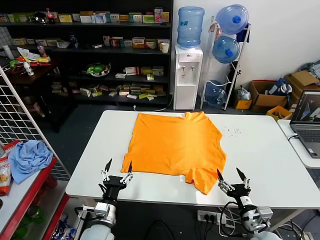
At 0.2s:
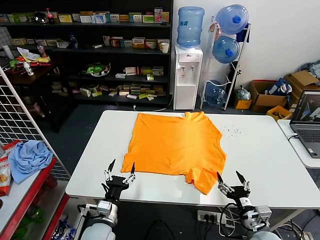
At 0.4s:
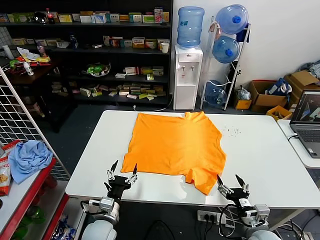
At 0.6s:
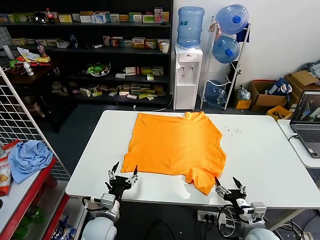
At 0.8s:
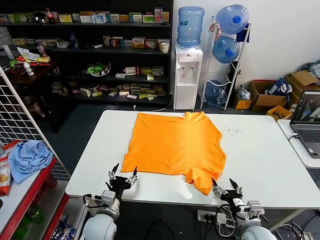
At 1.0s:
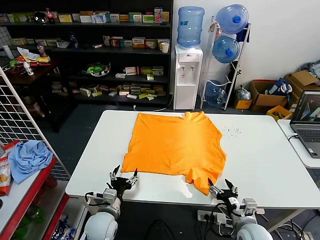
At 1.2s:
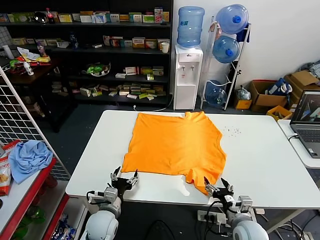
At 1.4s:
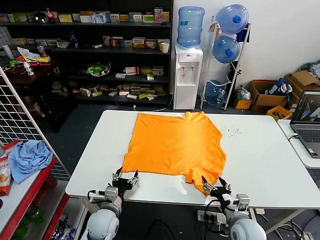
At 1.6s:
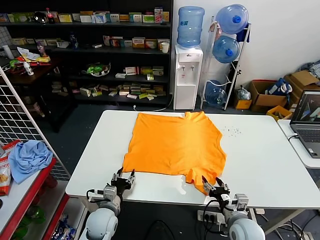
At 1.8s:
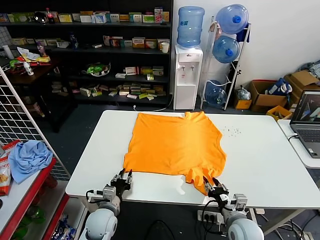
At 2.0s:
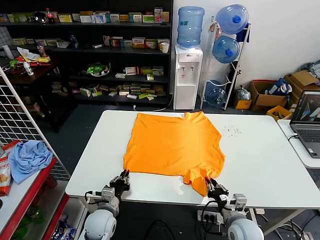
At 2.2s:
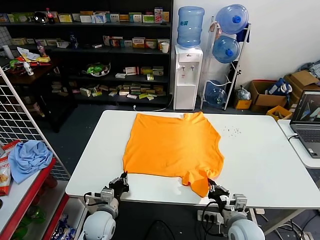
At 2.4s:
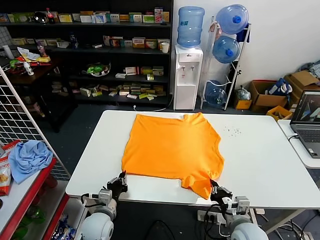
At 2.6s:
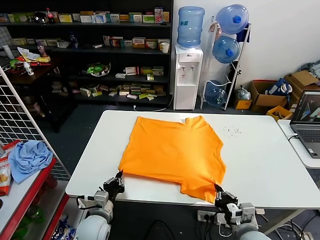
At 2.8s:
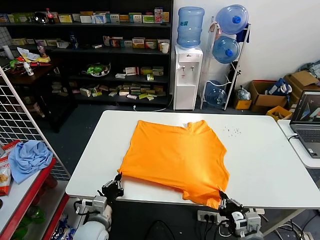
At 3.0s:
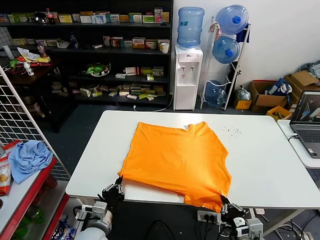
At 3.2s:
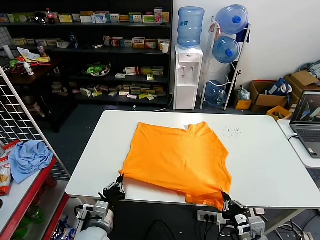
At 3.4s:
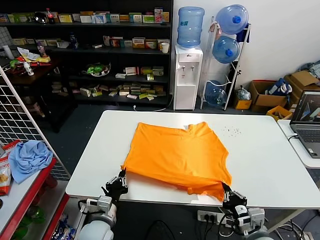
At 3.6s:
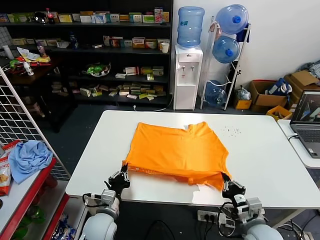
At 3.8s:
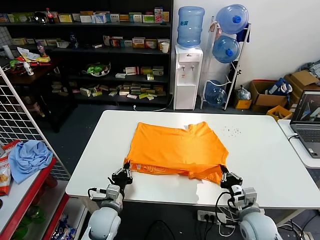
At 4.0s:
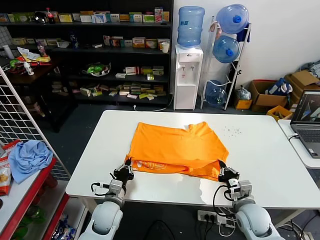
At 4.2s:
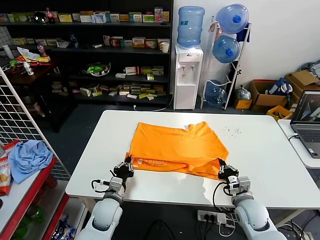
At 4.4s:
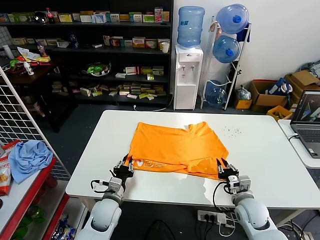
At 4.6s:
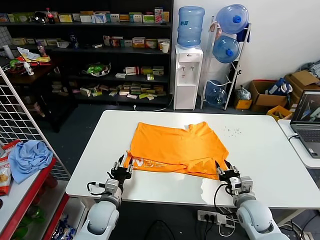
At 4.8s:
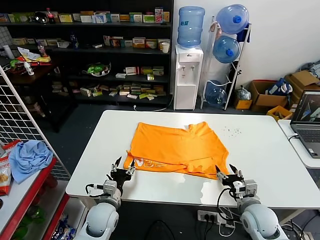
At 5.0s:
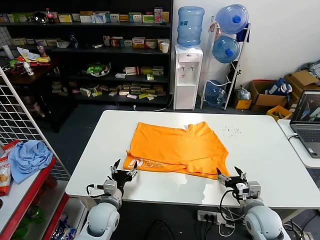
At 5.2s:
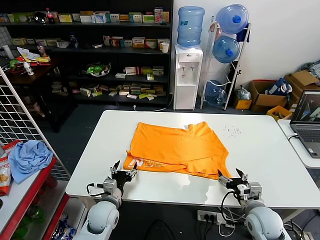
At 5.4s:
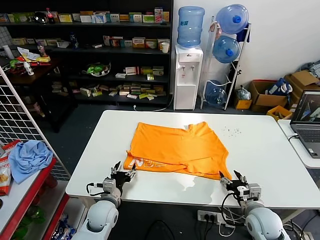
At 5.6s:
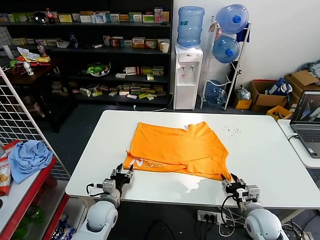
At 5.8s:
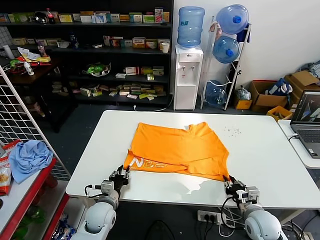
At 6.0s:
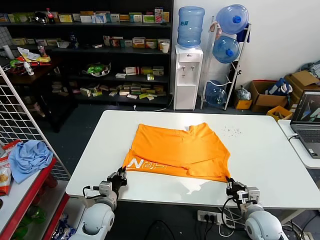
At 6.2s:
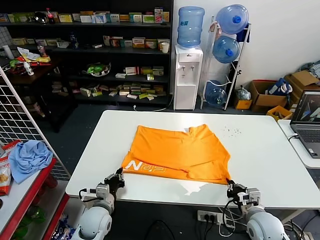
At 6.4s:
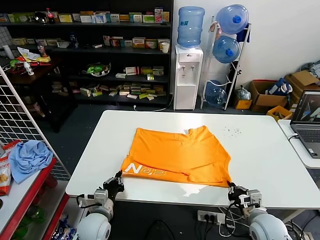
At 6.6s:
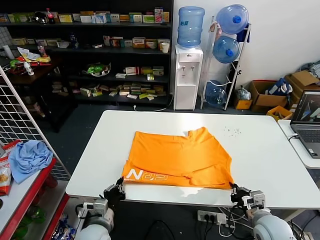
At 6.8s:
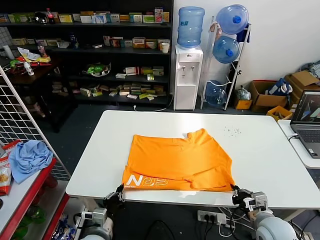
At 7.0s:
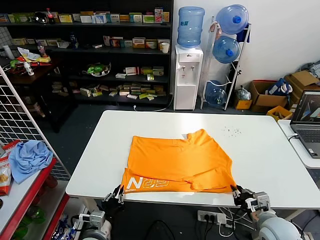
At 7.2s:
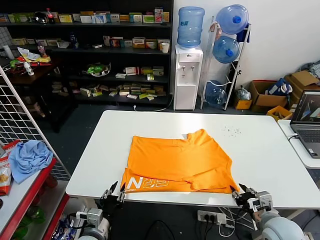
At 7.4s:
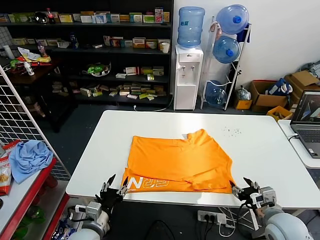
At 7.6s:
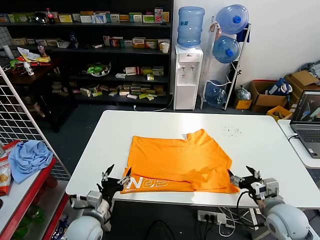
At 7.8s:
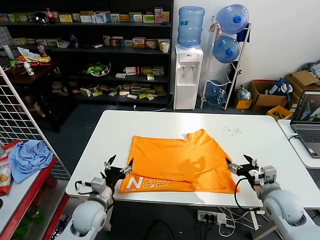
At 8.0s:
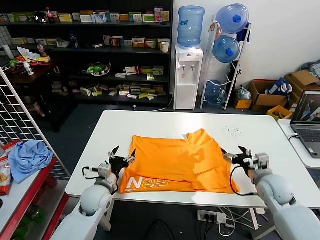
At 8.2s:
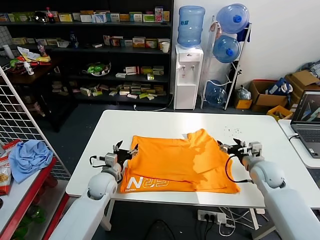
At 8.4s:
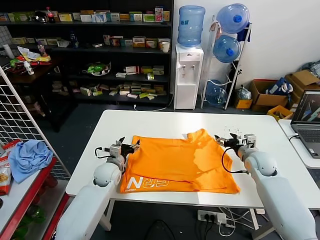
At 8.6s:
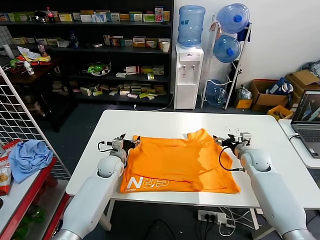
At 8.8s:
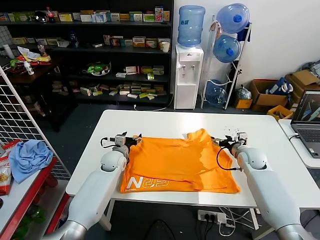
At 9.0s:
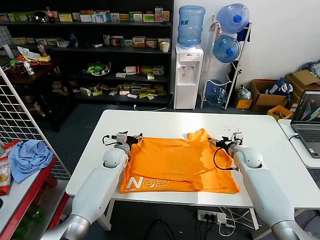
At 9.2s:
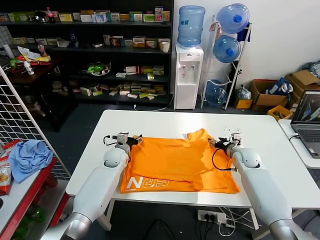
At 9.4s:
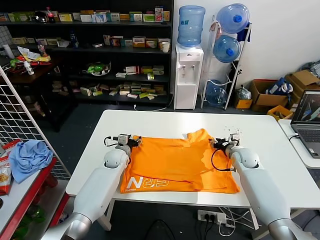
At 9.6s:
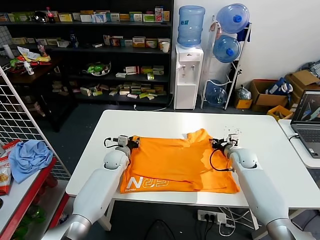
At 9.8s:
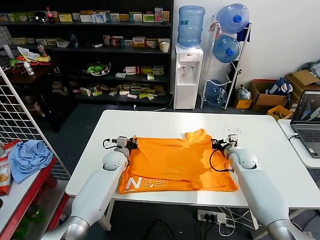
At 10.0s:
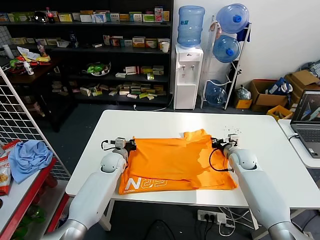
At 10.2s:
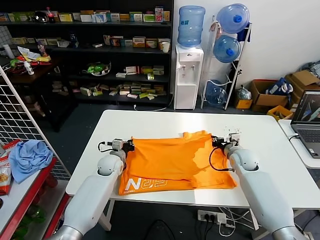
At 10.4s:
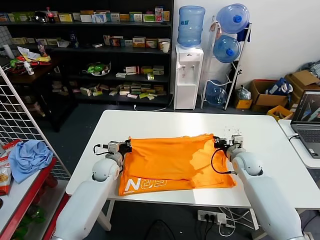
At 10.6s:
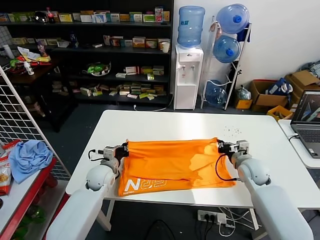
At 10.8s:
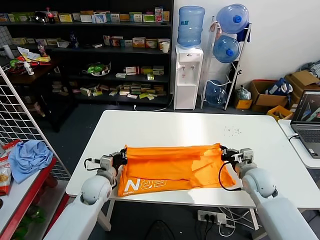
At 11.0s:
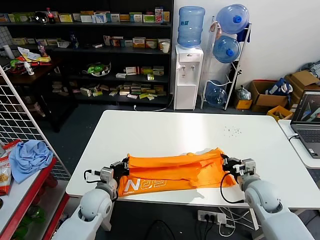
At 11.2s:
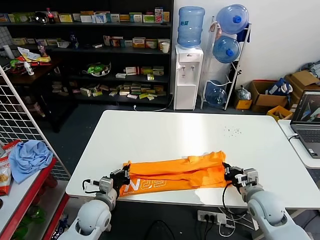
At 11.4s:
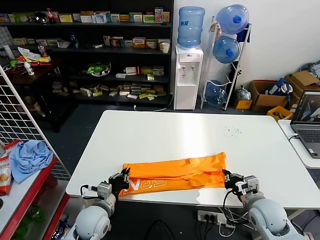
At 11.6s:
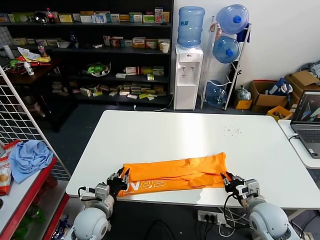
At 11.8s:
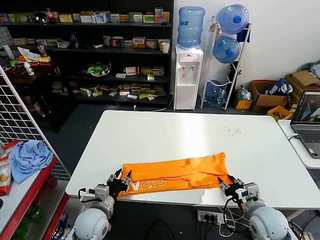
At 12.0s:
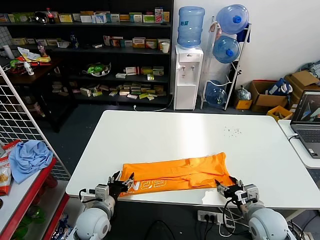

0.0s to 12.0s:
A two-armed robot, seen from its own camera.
Task of the whole recording: fold and organize the clothes.
Step, 0.0s to 2.4s: use both grippers simultaneously to clamp the lower edge of the clothing fabric.
Step, 2.6s to 4.6s: use both grippers to drag the lower edge of the fabric forward and fold it over the upper edge.
Step, 5.0s to 7.2s: Drag the clothes downward with both gripper.
Step, 7.4s to 10.0s: use both grippers simultaneously to clamp the upper edge of the clothing fabric.
1.6s to 3.0s: The left gripper is displaced backward by about 5 cm, and closes its fingers. The right gripper travels backward and upward by some 10 cm, and closes up.
3.0s to 4.4s: The right gripper goes about 15 cm forward, and opens. Meanwhile the left gripper travels forward by approximately 10 cm.
4.4s to 6.0s: The right gripper closes; the left gripper opens, then closes once more.
6.0s to 7.6s: The left gripper is displaced backward and upward by approximately 10 cm, and opens. The right gripper shifts roughly 10 cm upward, and opens its fingers.
7.6s to 9.0s: The two grippers go approximately 25 cm forward.
9.0s to 10.4s: The left gripper moves approximately 5 cm, and closes its fingers. The right gripper changes place by roughly 5 cm, and closes.
10.4s to 12.0s: Both grippers move backward, roughly 20 cm. The right gripper opens up. The left gripper opens its fingers.

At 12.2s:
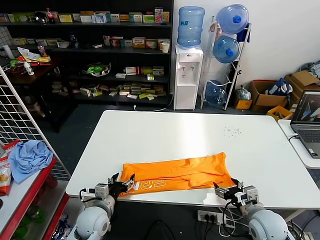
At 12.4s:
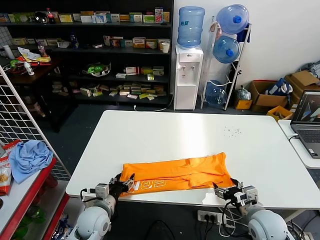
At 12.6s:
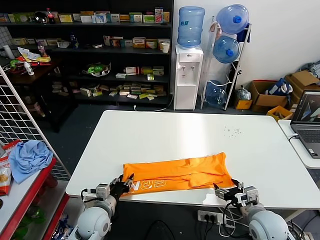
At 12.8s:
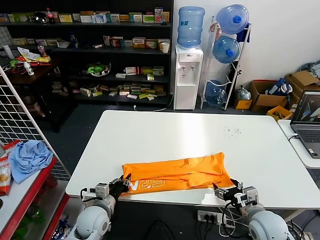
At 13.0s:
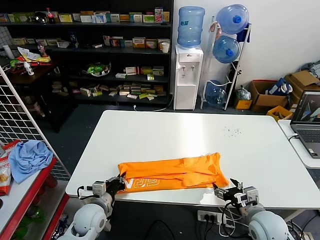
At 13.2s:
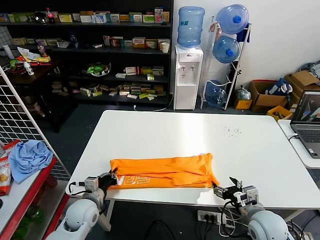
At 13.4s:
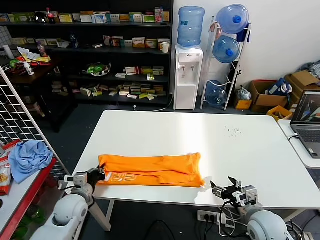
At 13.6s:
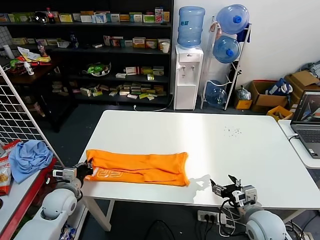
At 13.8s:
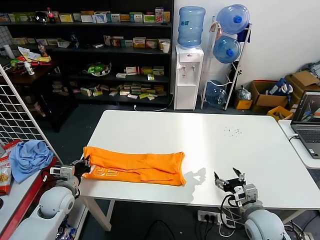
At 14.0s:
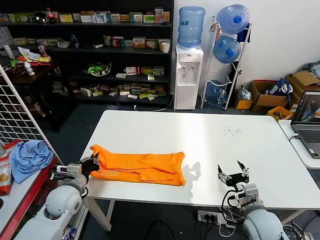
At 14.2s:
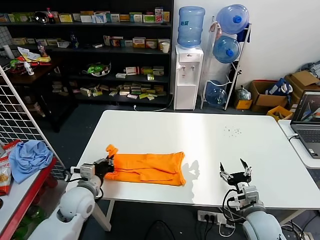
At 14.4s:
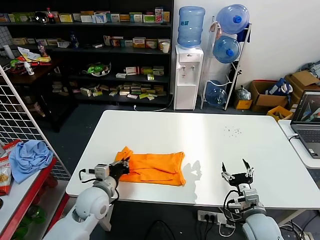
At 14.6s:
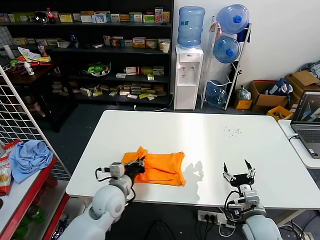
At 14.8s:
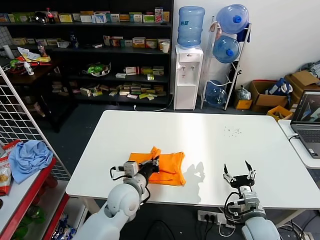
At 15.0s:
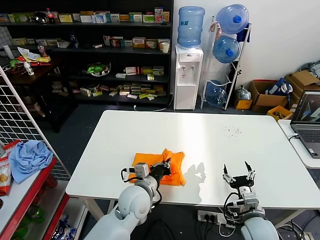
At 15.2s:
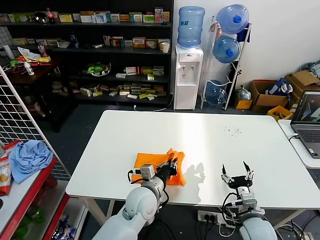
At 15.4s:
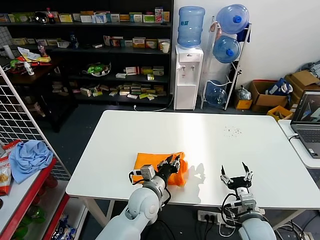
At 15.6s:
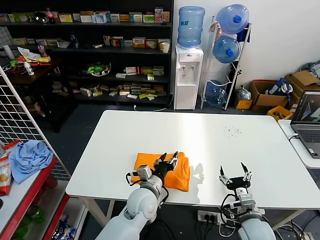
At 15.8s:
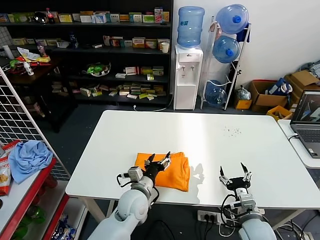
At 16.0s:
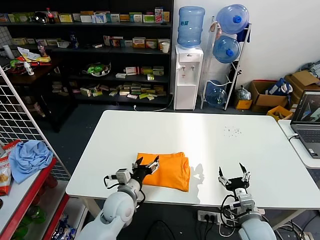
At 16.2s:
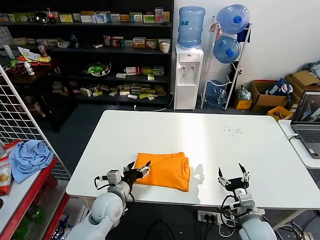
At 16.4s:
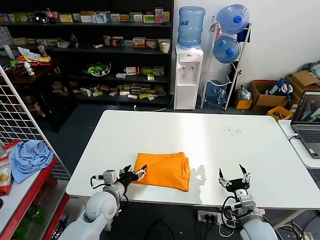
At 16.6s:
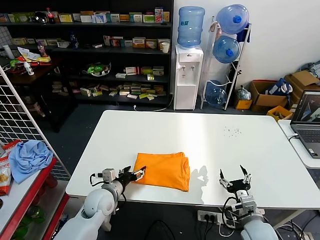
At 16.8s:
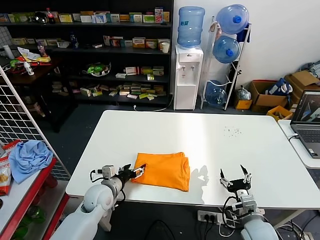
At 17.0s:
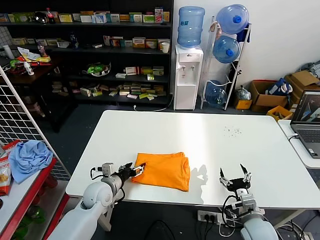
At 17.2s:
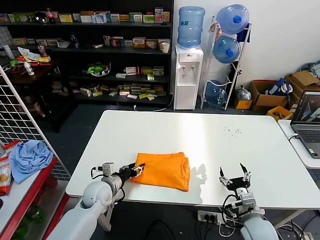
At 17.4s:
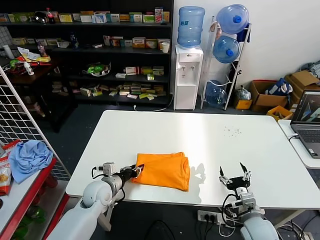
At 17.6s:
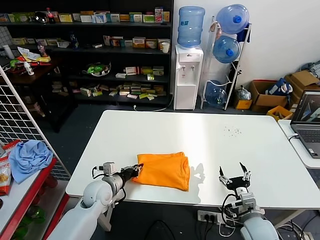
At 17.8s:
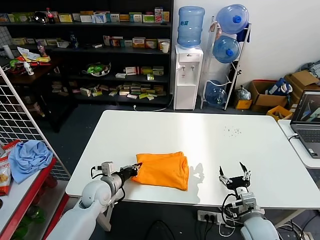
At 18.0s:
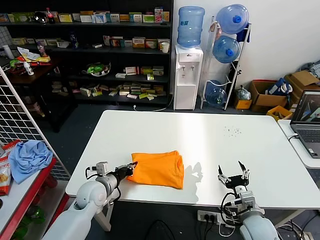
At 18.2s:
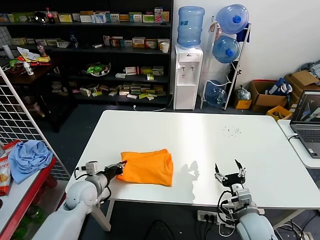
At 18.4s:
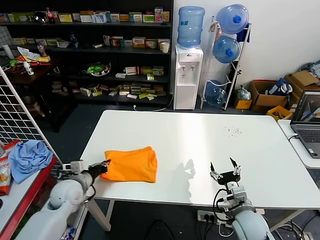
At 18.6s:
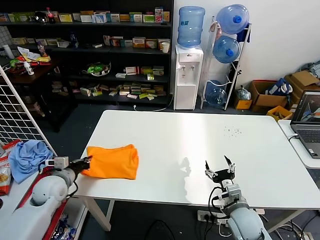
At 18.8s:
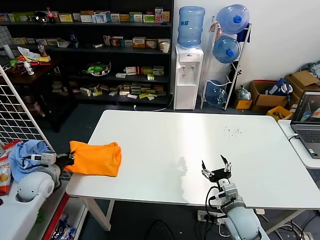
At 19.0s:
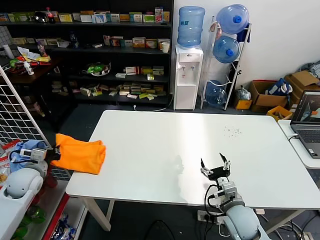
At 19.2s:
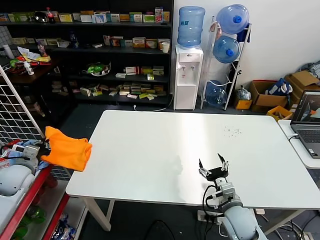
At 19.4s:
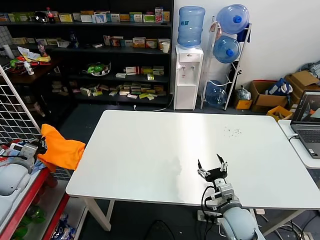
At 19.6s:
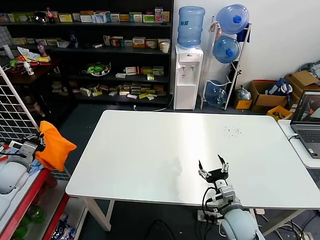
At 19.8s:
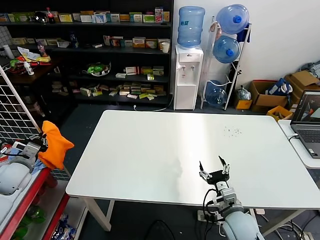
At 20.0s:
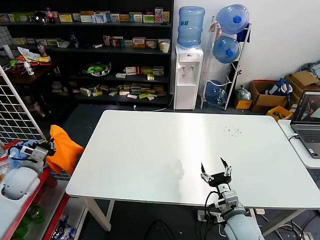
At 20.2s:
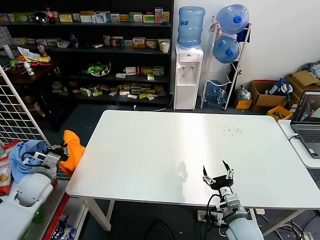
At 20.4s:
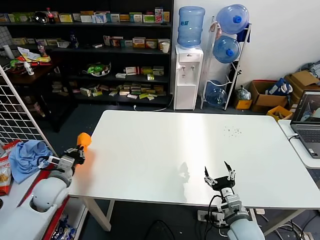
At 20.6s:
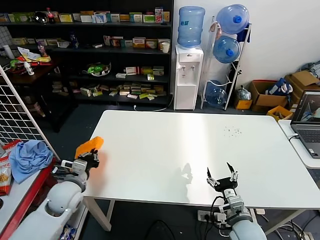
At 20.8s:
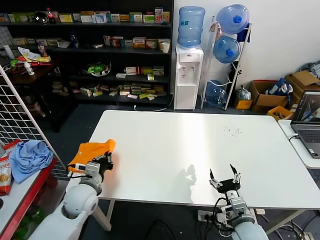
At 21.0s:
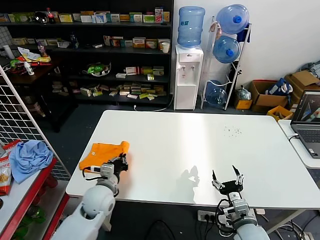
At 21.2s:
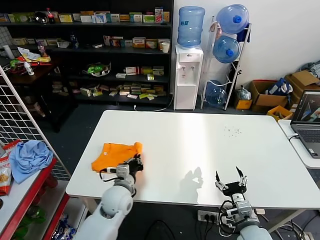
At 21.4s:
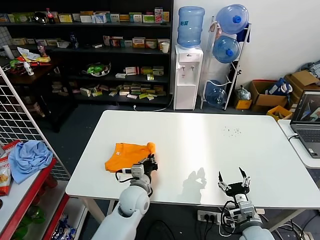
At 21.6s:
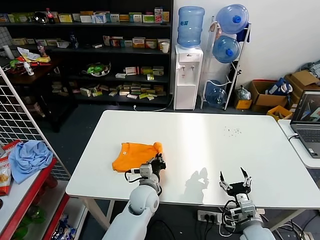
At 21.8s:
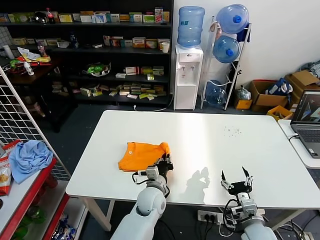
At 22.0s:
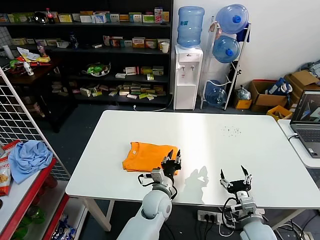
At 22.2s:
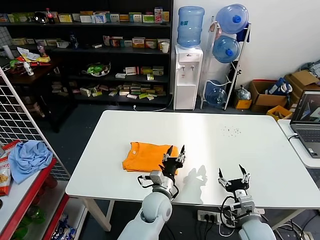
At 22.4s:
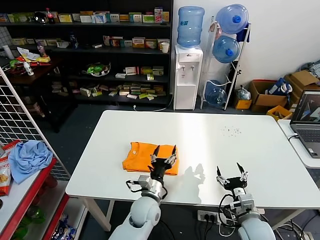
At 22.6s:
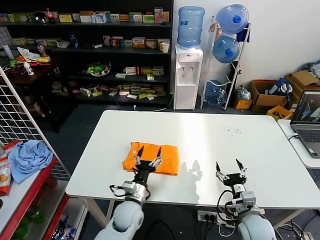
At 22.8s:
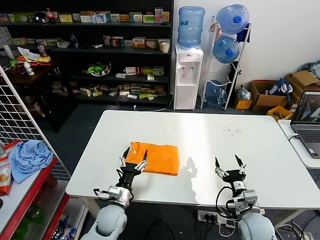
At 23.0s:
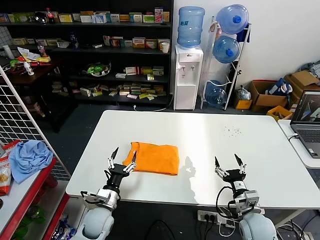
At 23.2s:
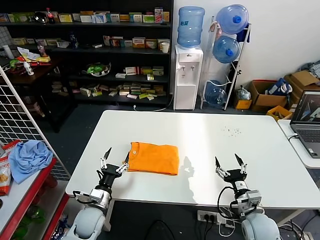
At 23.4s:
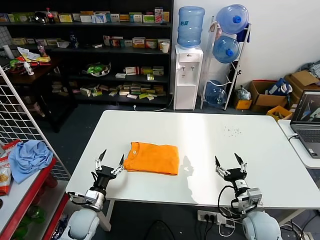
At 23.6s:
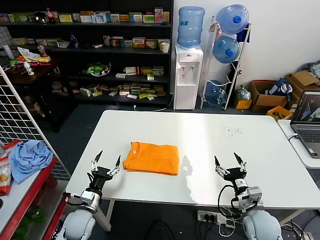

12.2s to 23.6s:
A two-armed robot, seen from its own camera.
Task of the whole recording: fold and organize the clothes.
Step, 12.2s to 13.2s: use the left gripper to clamp the left edge of the fabric.
Step, 13.4s to 15.6s: use the left gripper to drag the left edge of the fabric to the left and folds it over the right edge.
Step, 15.8s to 22.2s: Flip the folded clothes over with left gripper.
12.2s to 13.6s: The left gripper goes roughly 10 cm to the left, and closes its fingers.
13.6s to 15.0s: The left gripper is displaced to the right by roughly 25 cm.
15.0s to 16.4s: The left gripper goes about 10 cm to the left and downward, and opens up.
16.4s to 17.8s: The left gripper shifts by roughly 5 cm, and closes its fingers.
17.8s to 19.4s: The right gripper goes roughly 5 cm to the left; the left gripper travels to the left and upward by some 30 cm.
19.4s to 20.8s: The left gripper is displaced to the right by approximately 20 cm.
20.8s to 22.2s: The left gripper heads to the right, covering some 25 cm, and opens.
22.2s to 23.6s: The left gripper moves to the left, about 25 cm, and opens.
